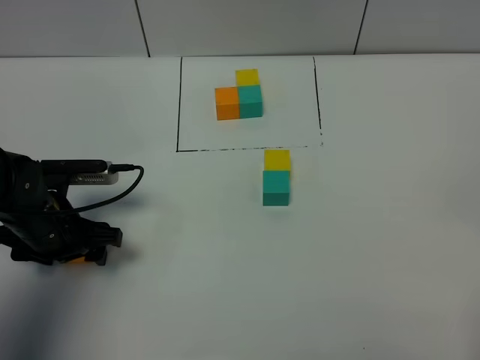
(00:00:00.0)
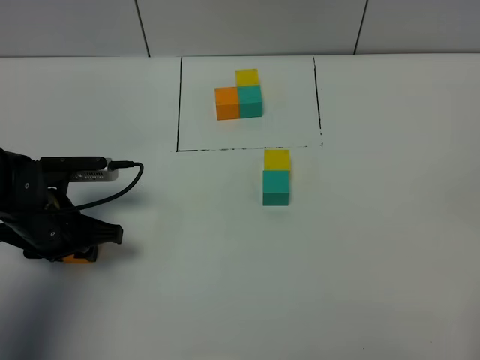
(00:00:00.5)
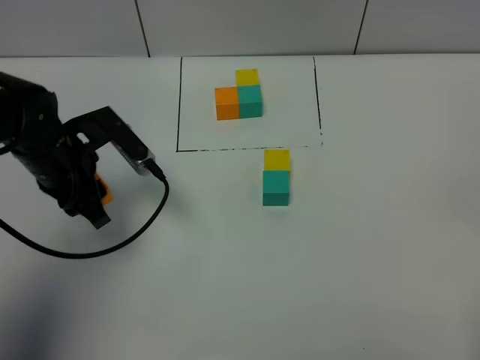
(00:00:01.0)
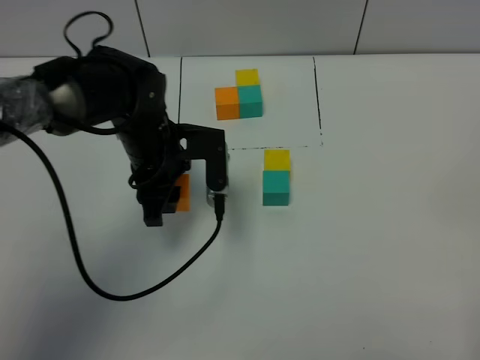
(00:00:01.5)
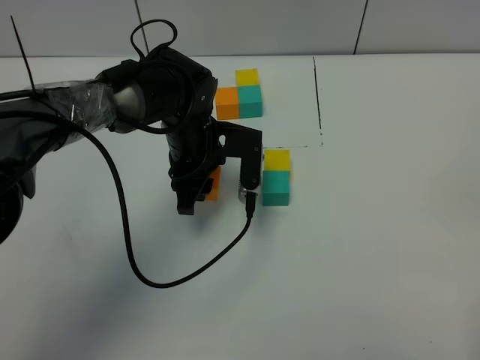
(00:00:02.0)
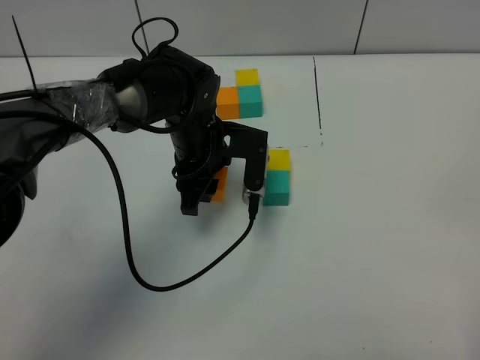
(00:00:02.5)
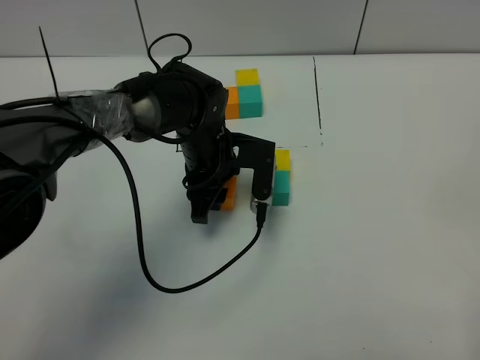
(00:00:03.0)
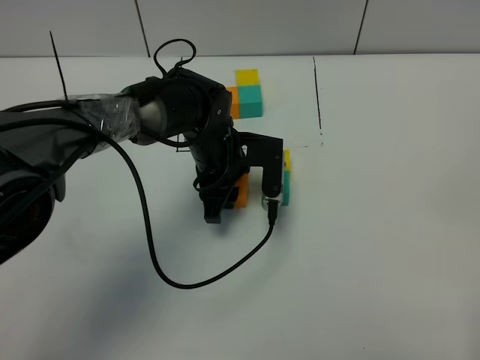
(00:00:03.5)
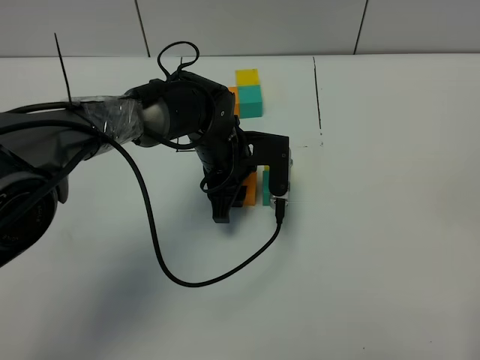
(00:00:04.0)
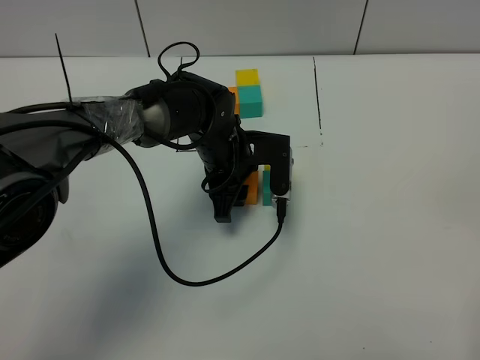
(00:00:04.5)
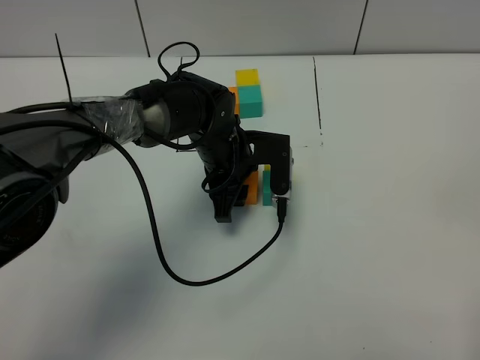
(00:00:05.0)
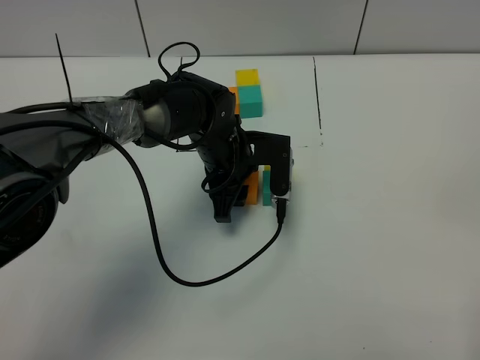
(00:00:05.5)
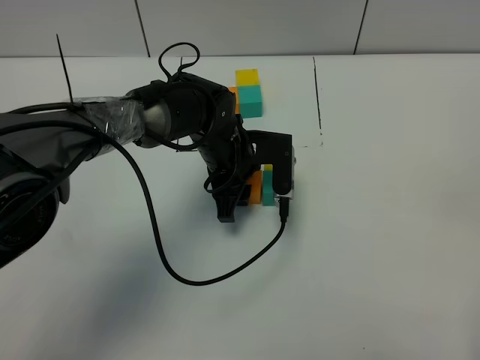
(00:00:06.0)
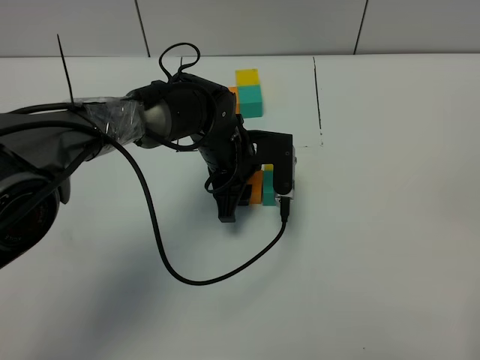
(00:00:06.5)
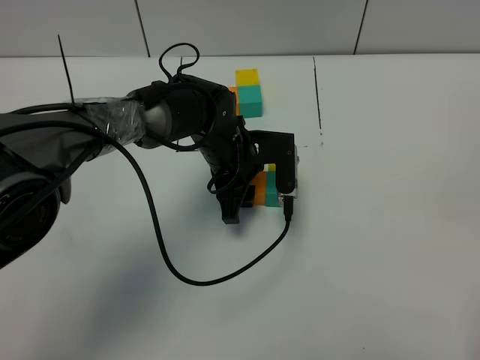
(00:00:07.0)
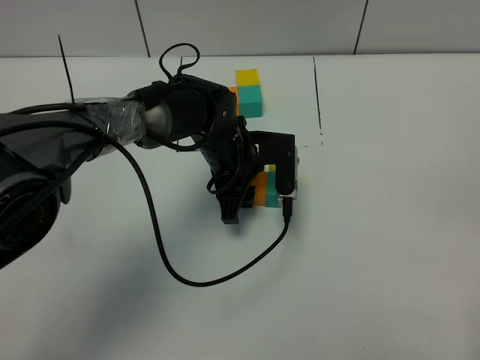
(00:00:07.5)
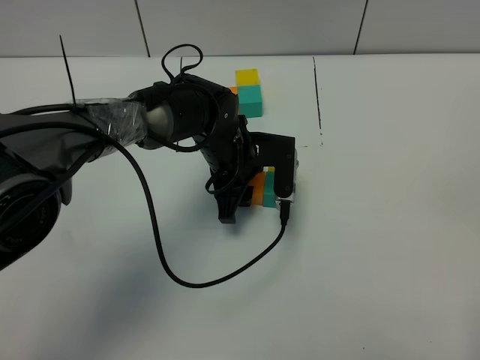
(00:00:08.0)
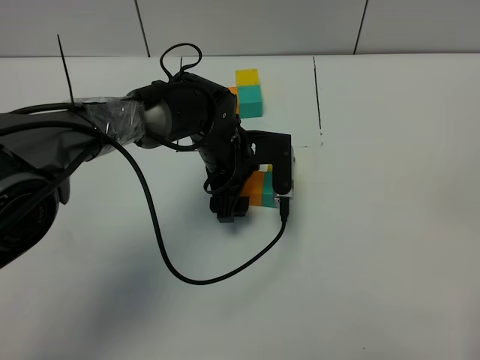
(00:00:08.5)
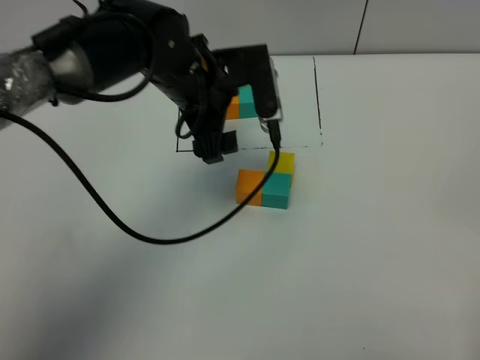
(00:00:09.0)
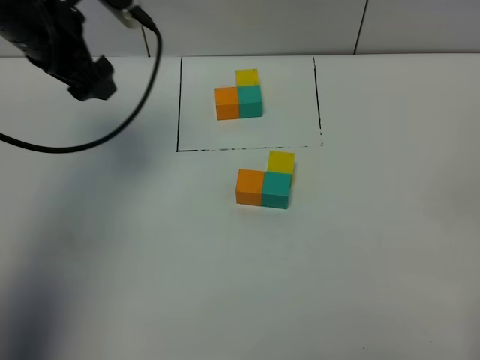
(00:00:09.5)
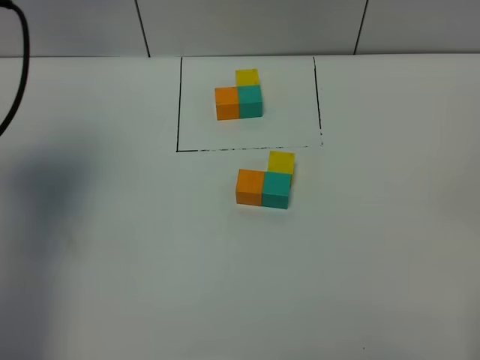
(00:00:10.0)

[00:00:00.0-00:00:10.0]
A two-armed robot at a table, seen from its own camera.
Task of the whole recording: According to the building block template in front, assemble the scattered blocks together.
Step, 00:00:00.0 to 00:00:08.5: Put the left build block on the left of the green build block.
00:00:00.0 to 00:00:02.0: The left gripper moves to the right and forward, about 20 cm, and closes up.
00:00:02.0 to 00:00:04.0: The grippers stay close to where they were, moving slightly.
00:00:04.0 to 00:00:08.0: Both grippers stay put.
00:00:08.0 to 00:00:10.0: The left gripper is displaced to the left and upward by some 40 cm, and opens up.

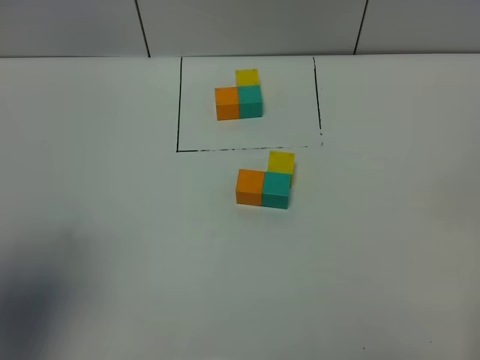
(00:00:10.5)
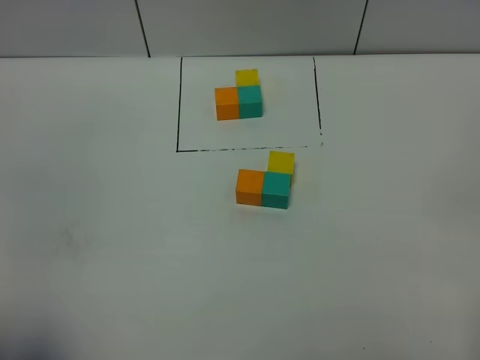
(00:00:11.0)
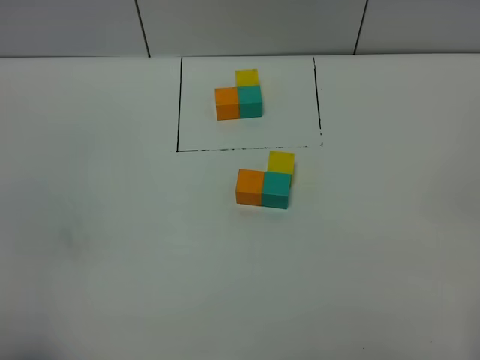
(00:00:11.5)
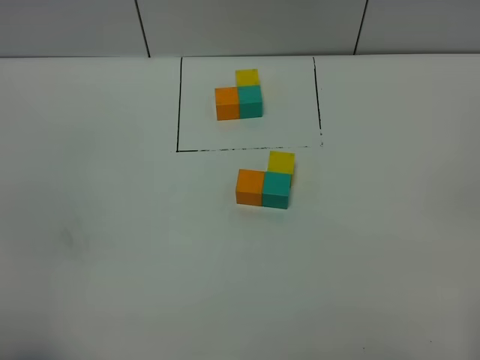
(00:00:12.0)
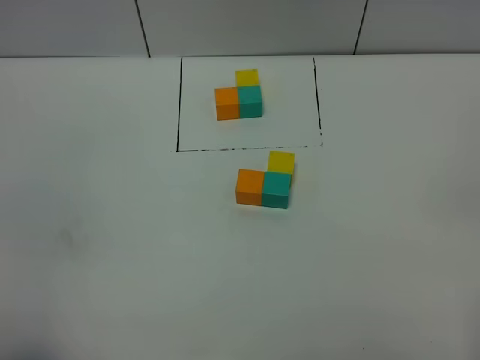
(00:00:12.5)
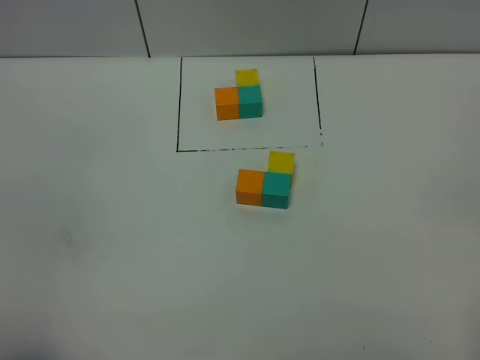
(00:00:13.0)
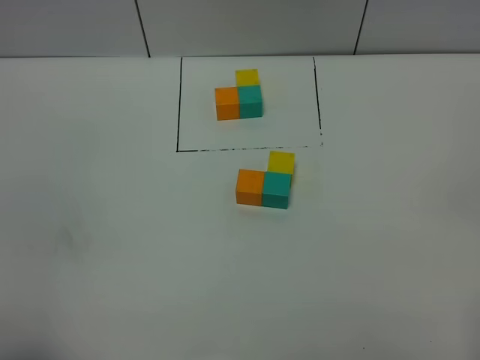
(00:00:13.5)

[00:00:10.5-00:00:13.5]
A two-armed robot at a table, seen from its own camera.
Task of the whole recording: According to the building block template in front, assemble the scattered blocks together.
00:00:10.5 to 00:00:12.0: The left gripper moves backward and downward, roughly 15 cm.
00:00:12.0 to 00:00:13.5: The two grippers keep their place.
